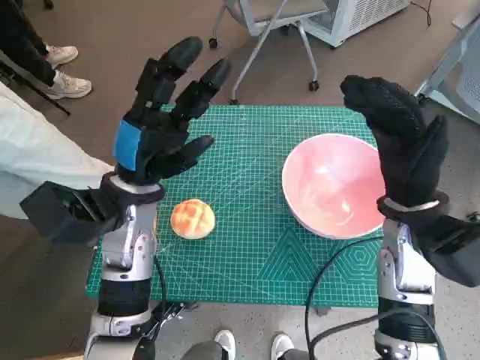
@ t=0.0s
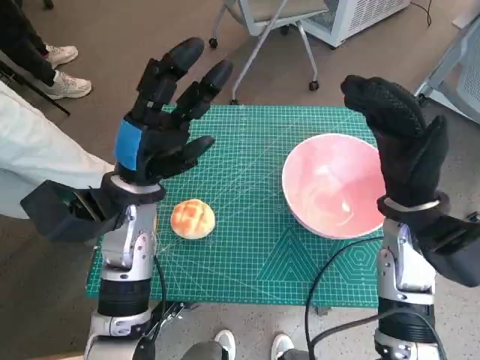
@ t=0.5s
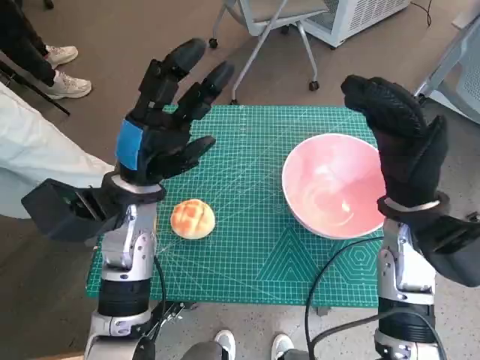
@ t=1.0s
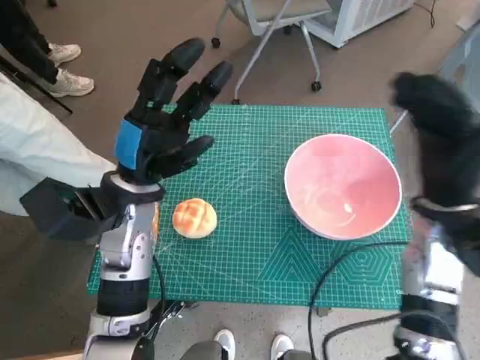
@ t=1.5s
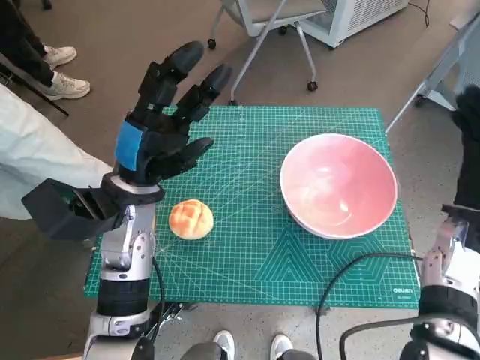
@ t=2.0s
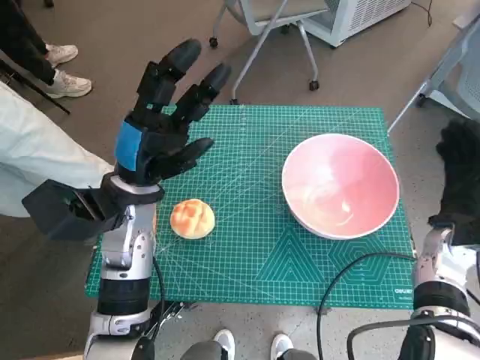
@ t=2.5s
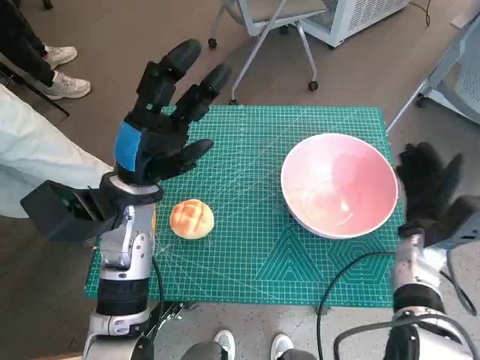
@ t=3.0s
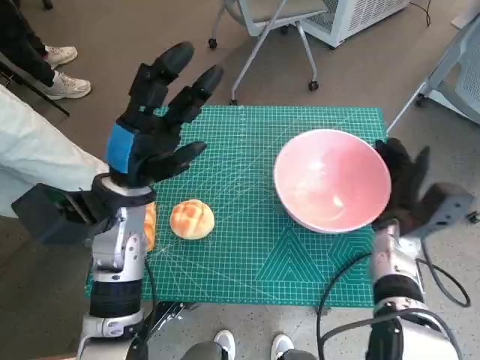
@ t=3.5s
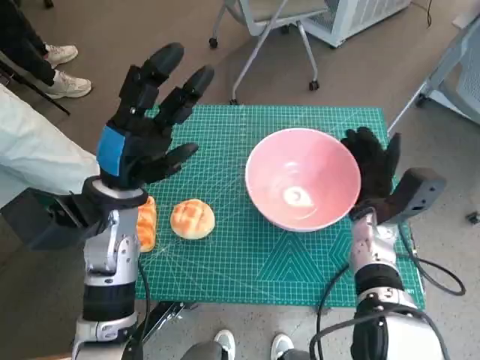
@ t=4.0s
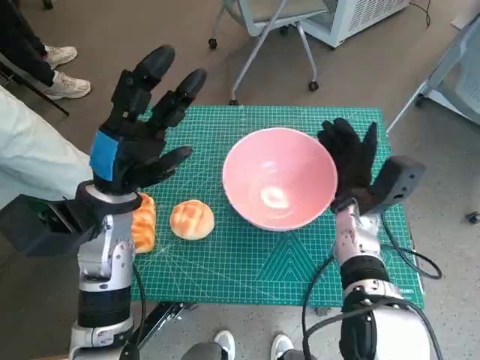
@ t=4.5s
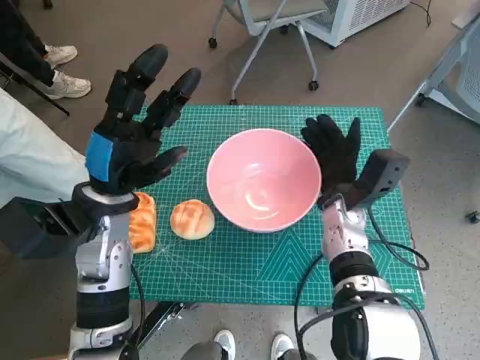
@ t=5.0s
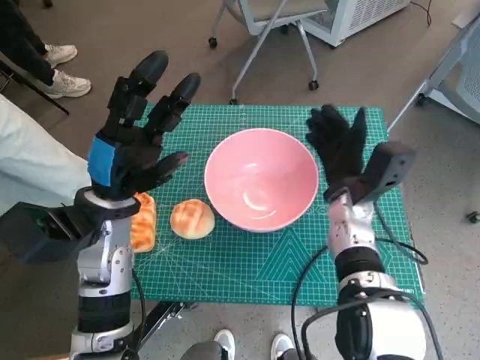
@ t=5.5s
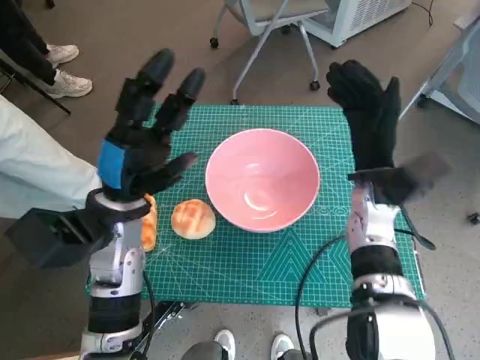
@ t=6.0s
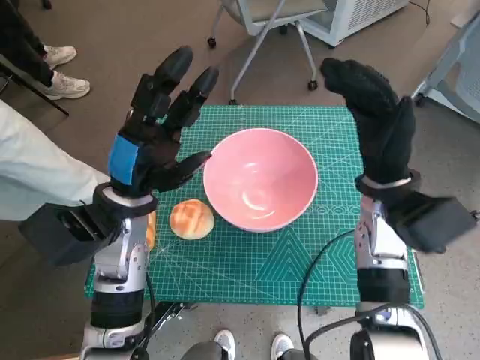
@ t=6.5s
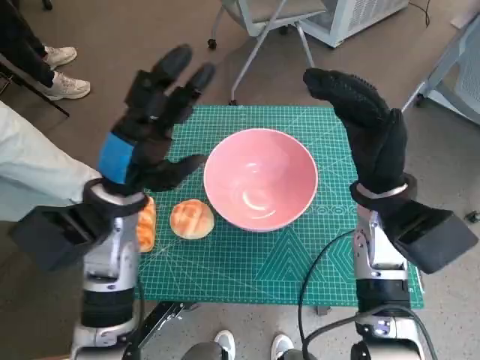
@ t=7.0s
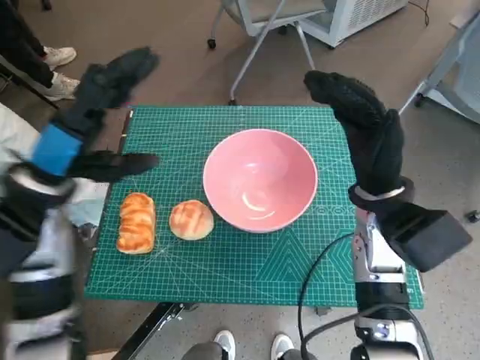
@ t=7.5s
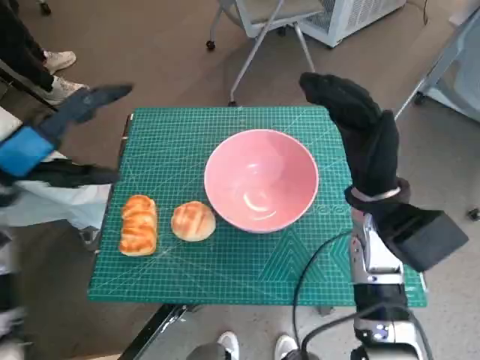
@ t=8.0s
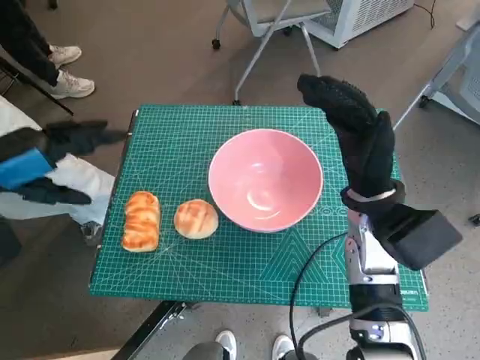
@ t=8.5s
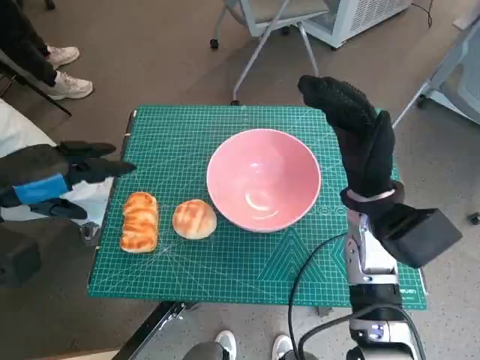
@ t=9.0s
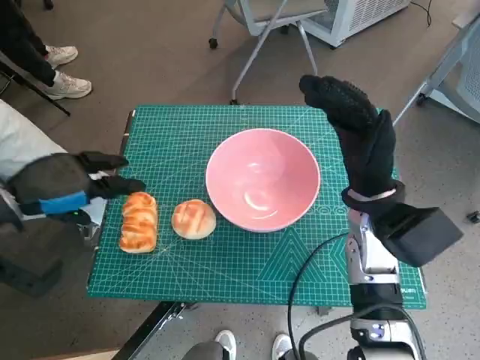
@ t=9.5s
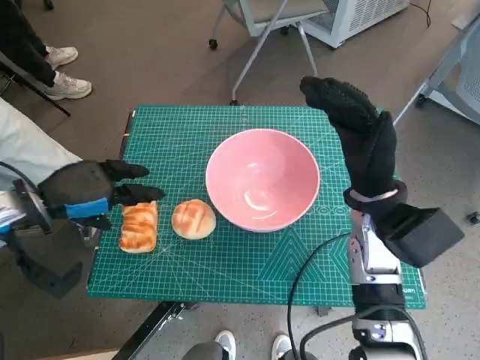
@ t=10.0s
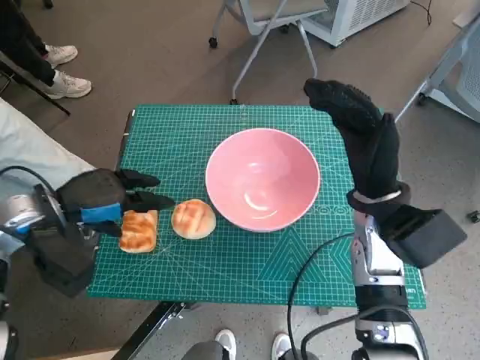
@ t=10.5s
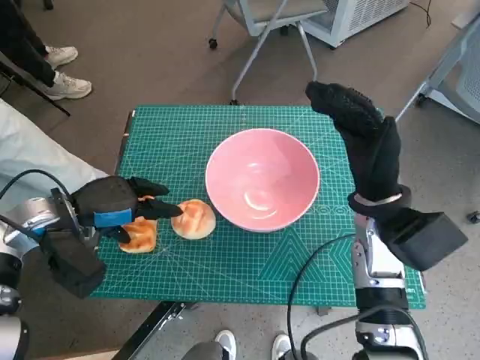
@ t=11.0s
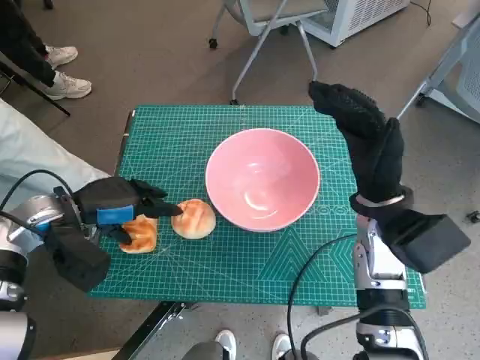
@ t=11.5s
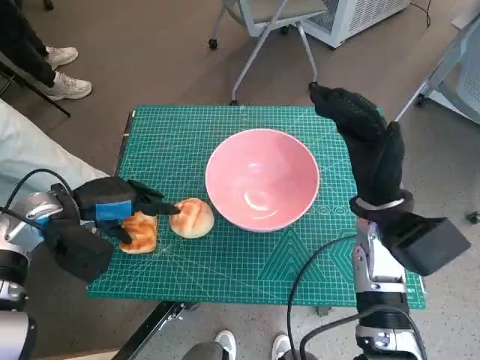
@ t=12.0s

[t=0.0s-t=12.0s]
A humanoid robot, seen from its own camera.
Task of the whole recording: Push the bowl into the center of the table and put the bread into the bowl.
Step, t=0.0s to t=5.5s: Move the pink bowl to the center of table with right hand.
t=2.0s to t=4.0s: The right hand shifts approximately 10 cm to the left and downward.
t=4.0s to t=6.0s: The right hand moves upward, some 5 cm.
t=6.0s to t=8.0s: The right hand changes place by some 5 cm, while the left hand travels to the left and upward by about 15 cm.
t=8.0s to t=10.0s: The left hand is displaced downward by roughly 5 cm.
t=10.0s to t=12.0s: There are only small adjustments of the hands.

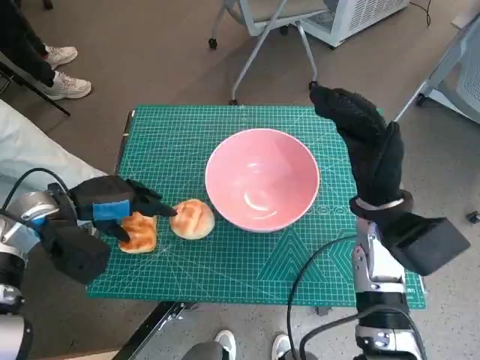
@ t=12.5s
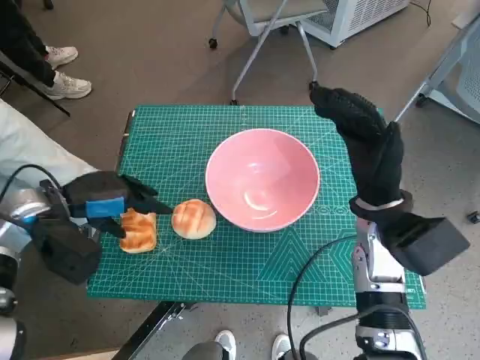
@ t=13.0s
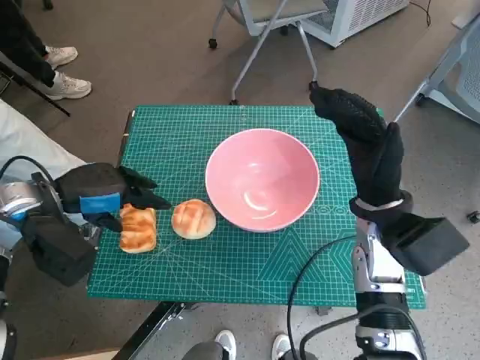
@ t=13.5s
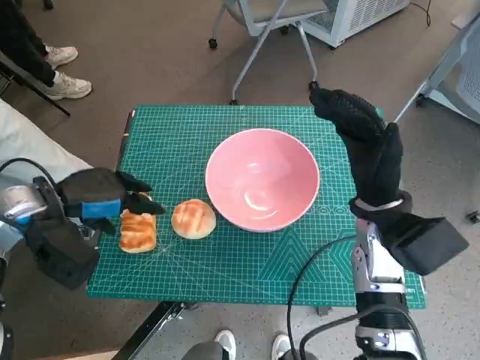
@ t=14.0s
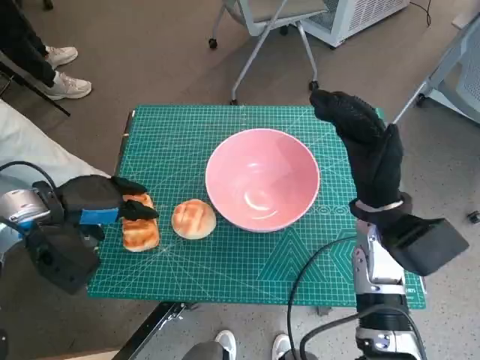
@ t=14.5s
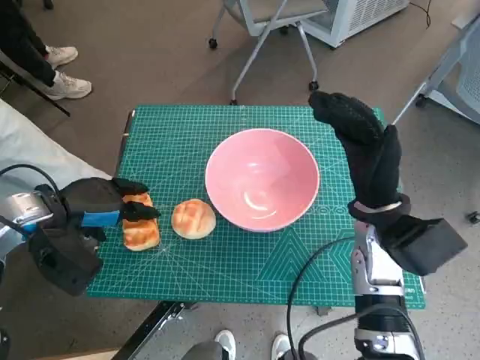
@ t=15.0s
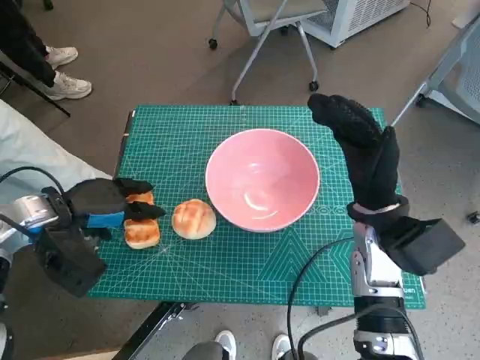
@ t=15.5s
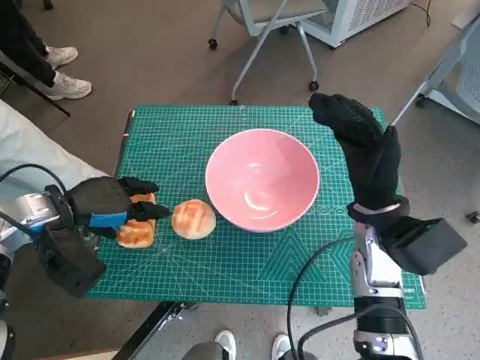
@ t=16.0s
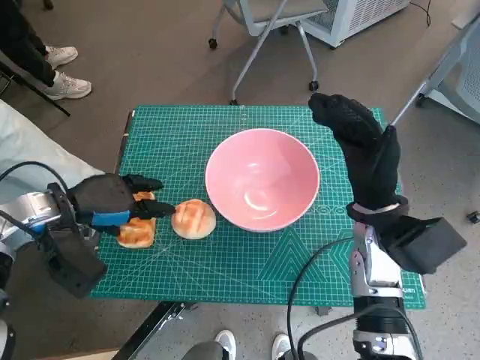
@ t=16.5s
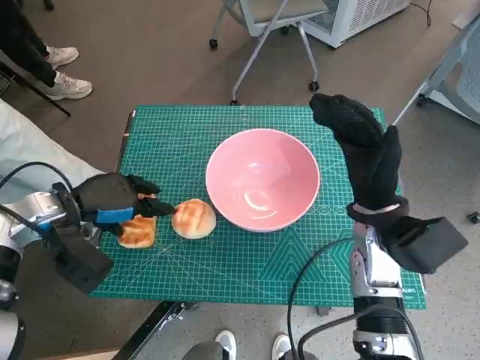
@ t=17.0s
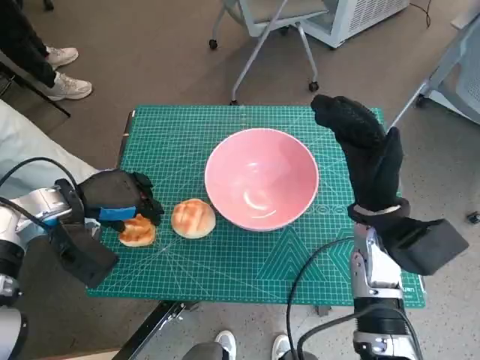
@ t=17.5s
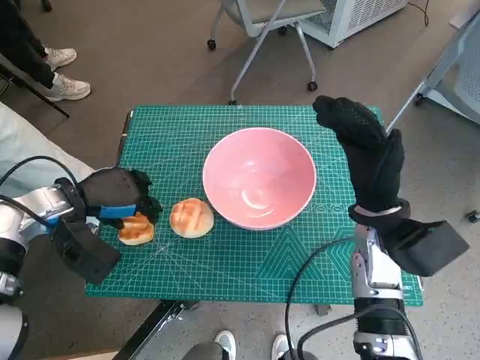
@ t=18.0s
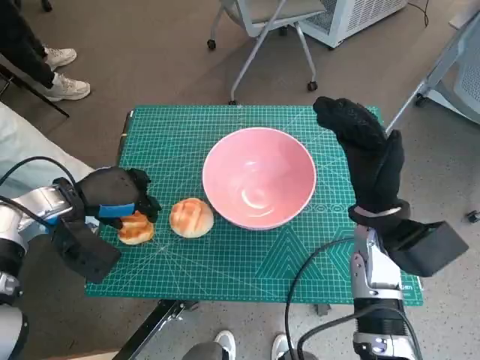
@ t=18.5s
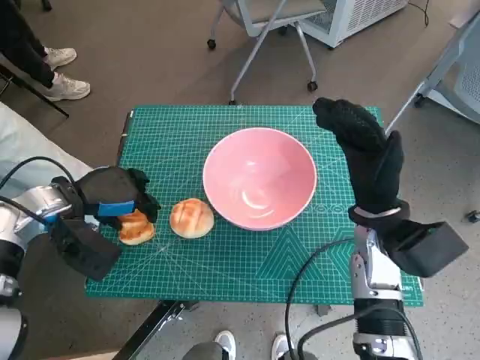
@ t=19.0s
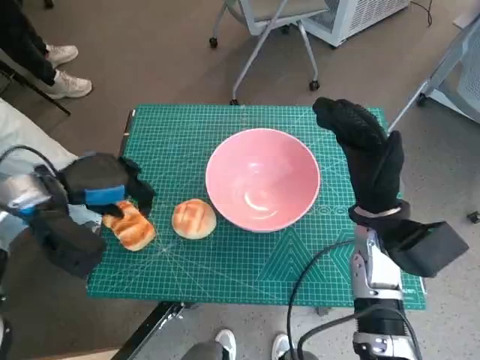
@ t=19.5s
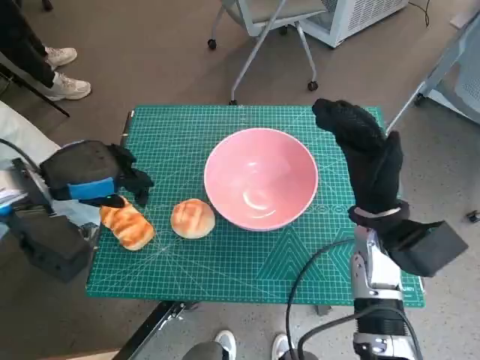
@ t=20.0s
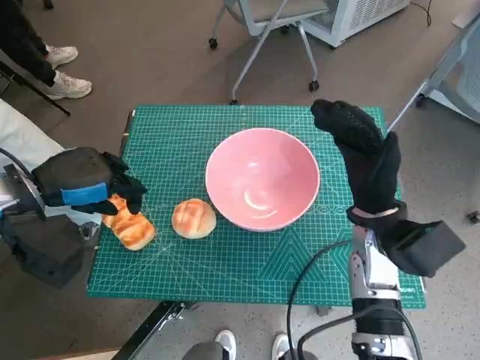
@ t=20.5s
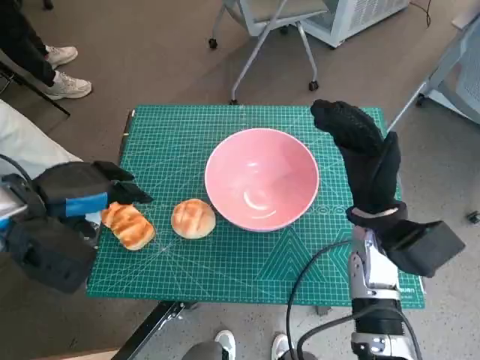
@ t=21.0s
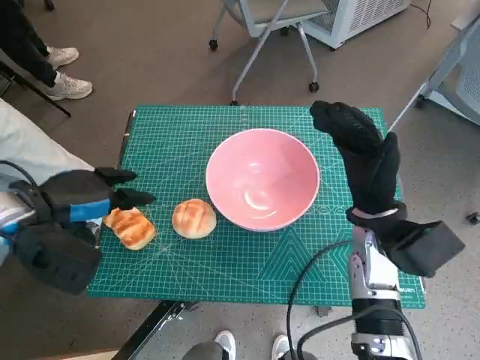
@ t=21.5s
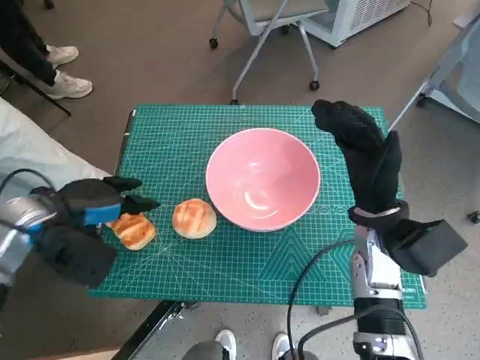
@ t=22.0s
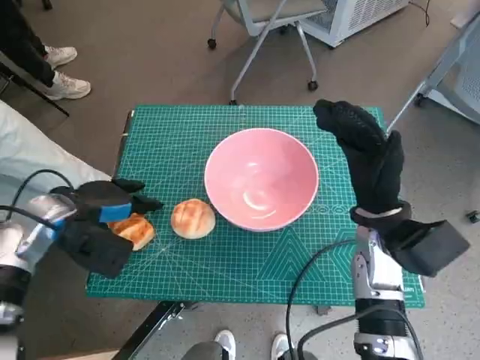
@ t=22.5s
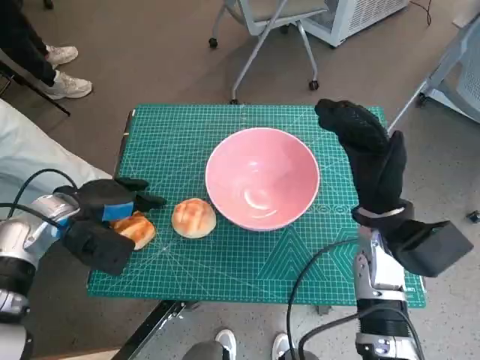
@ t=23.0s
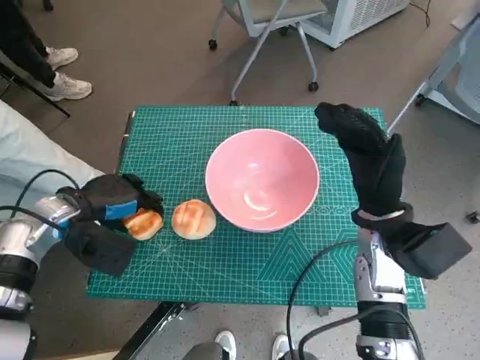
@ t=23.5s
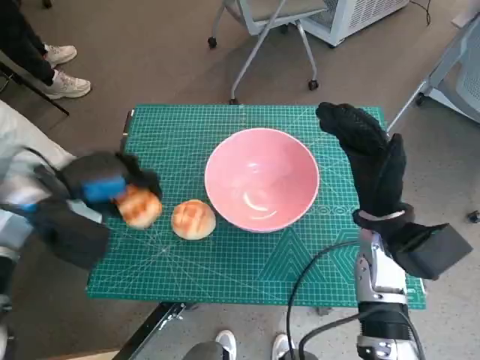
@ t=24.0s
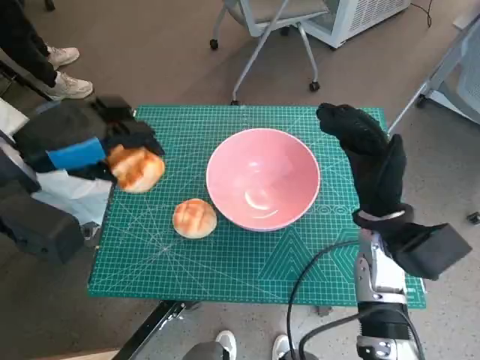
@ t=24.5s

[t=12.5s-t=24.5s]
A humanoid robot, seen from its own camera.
Task of the whole recording: Push the bowl into the center of the table and put the bread into the bowl.
Step, t=12.5s to t=18.5s: Grasp the long bread with left hand.
Step, t=19.0s to t=23.0s: Grasp the long bread with left hand.
t=12.5s to t=18.5s: The hands stay close to where they were, moving slightly.
t=18.5s to t=20.5s: The left hand shifts approximately 5 cm upward.
t=20.5s to t=22.5s: The left hand goes roughly 5 cm downward.
t=22.5s to t=24.5s: The left hand is displaced upward by roughly 10 cm.

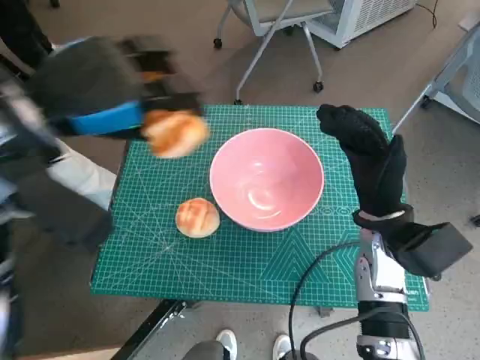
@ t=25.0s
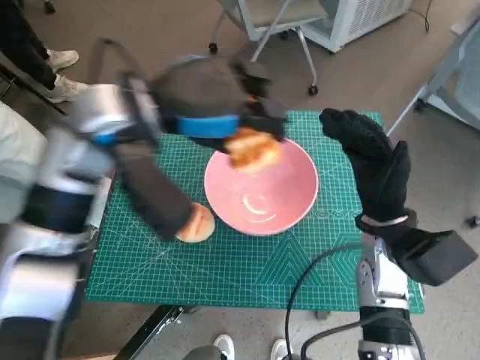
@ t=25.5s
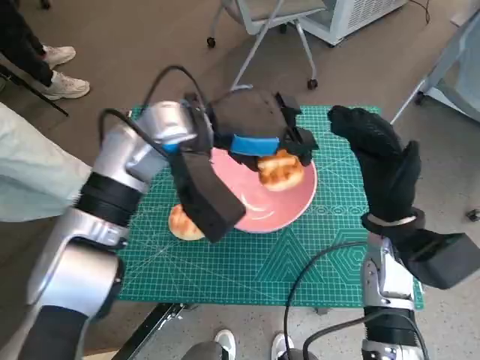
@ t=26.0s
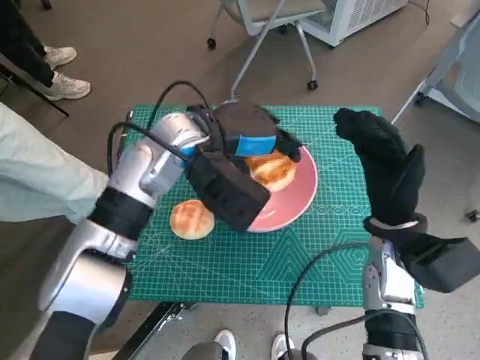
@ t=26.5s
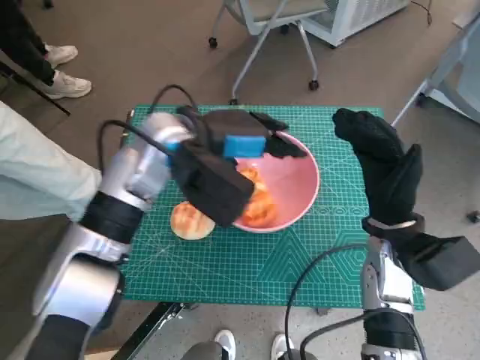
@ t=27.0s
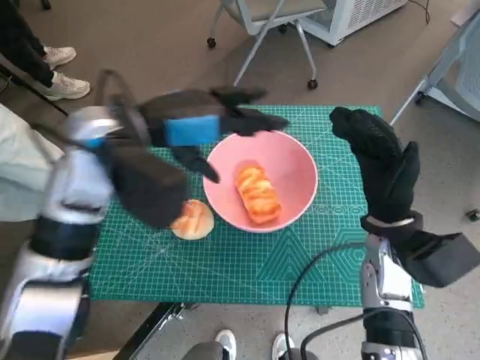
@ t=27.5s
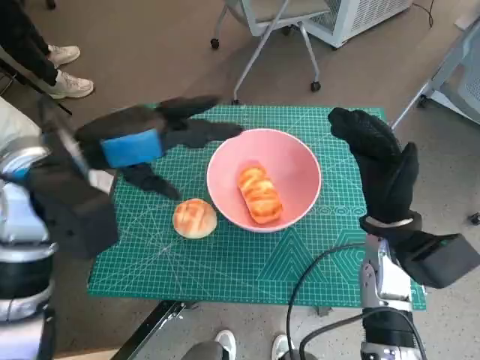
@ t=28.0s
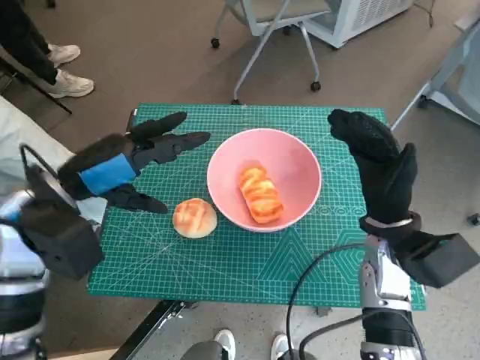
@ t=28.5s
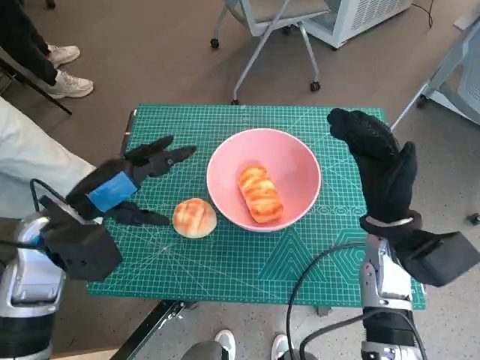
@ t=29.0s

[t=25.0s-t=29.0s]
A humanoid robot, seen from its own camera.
Task of the whole recording: Push the bowl into the center of the table and put the bread into the bowl.
Step, t=25.0s to t=27.5s: Place the long bread in pink bowl with left hand.
t=25.0s to t=27.0s: The left hand shifts some 15 cm to the right, downward and forward.
t=27.0s to t=29.0s: The left hand shifts about 15 cm to the left and backward.
